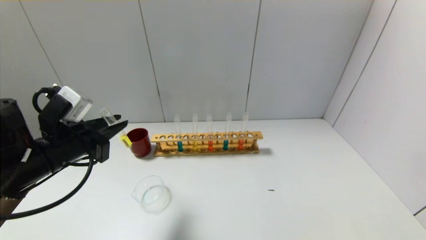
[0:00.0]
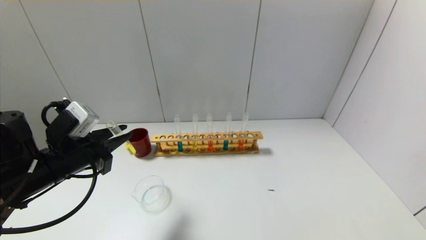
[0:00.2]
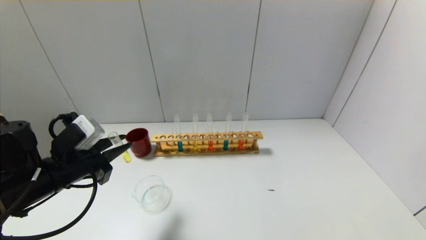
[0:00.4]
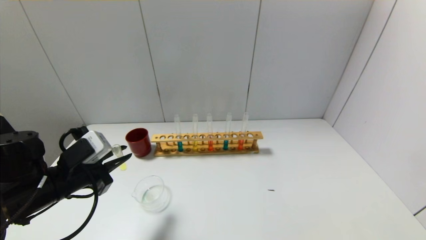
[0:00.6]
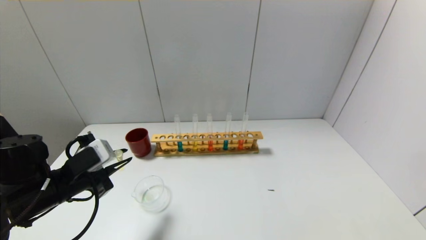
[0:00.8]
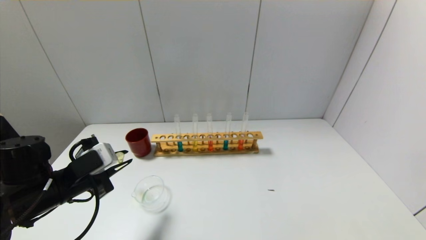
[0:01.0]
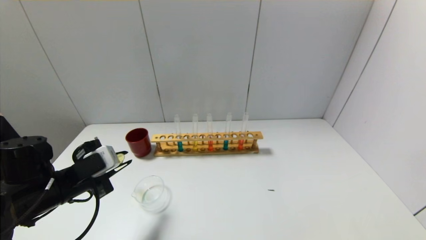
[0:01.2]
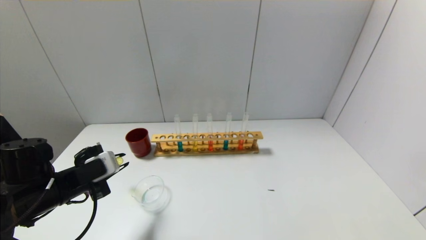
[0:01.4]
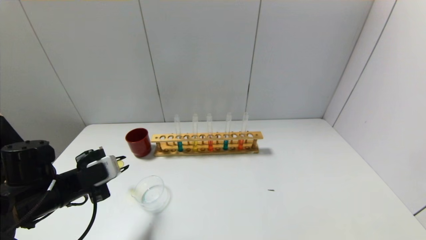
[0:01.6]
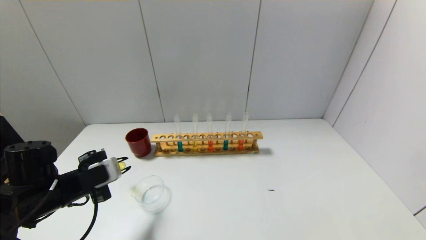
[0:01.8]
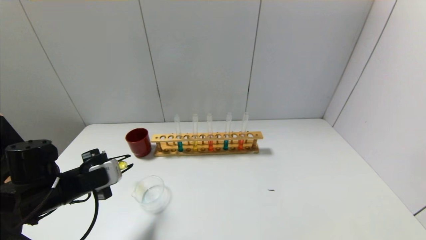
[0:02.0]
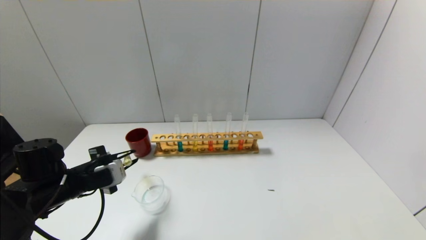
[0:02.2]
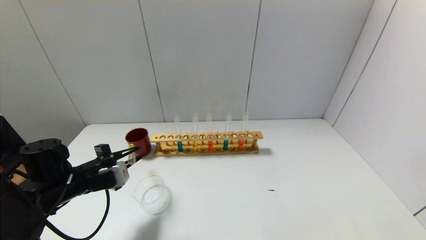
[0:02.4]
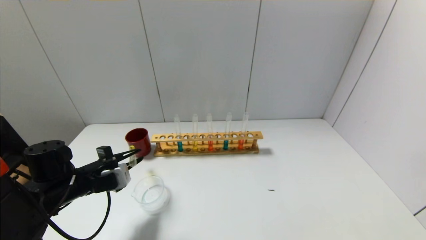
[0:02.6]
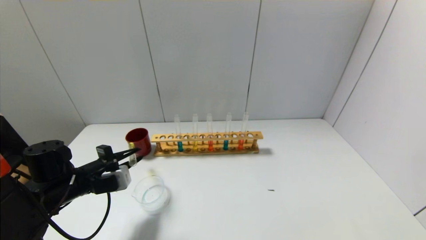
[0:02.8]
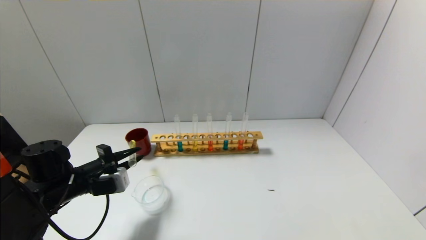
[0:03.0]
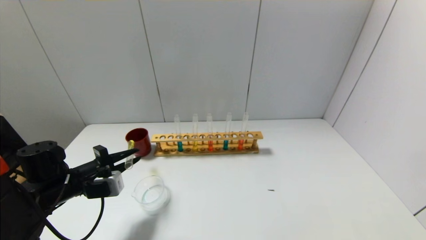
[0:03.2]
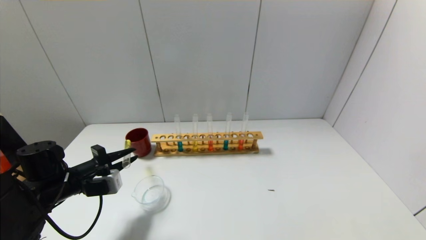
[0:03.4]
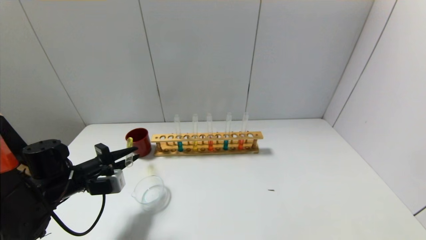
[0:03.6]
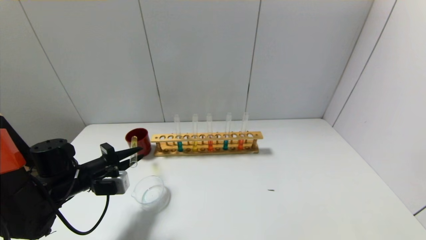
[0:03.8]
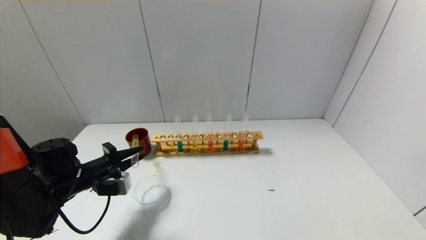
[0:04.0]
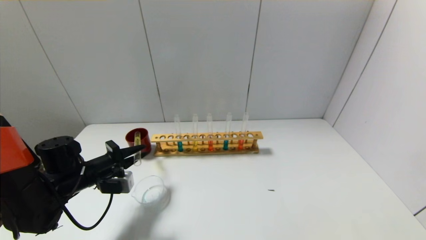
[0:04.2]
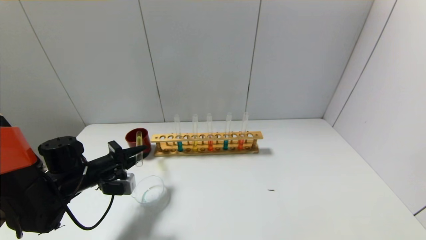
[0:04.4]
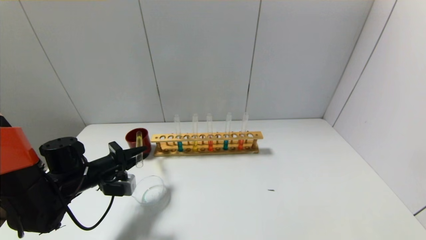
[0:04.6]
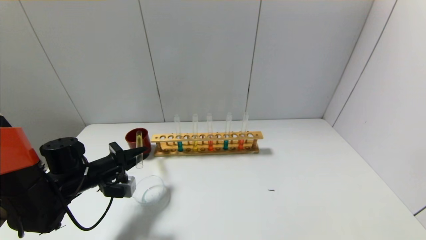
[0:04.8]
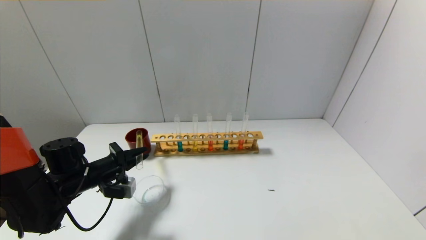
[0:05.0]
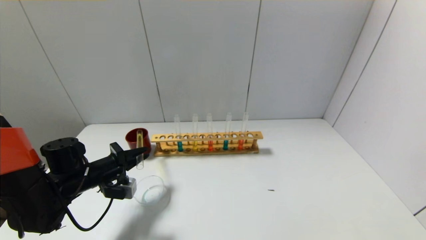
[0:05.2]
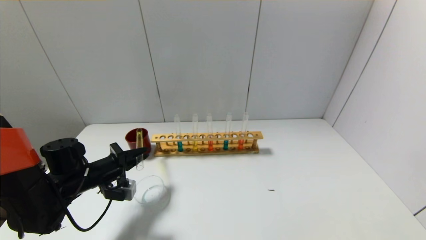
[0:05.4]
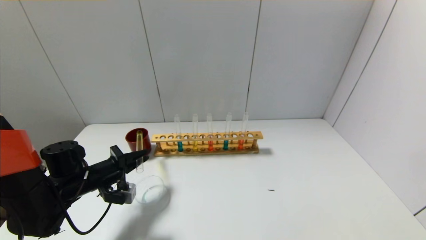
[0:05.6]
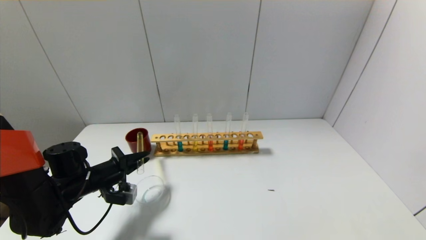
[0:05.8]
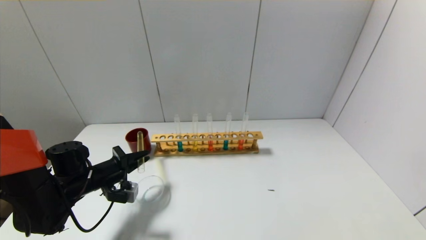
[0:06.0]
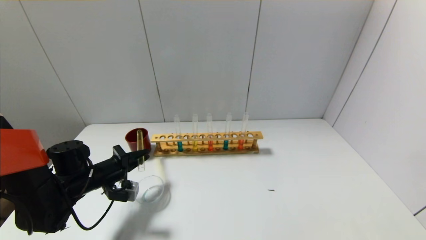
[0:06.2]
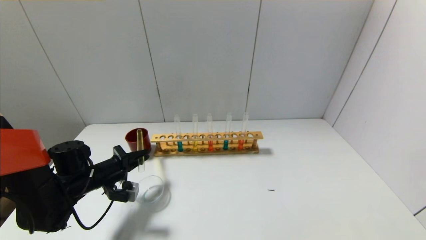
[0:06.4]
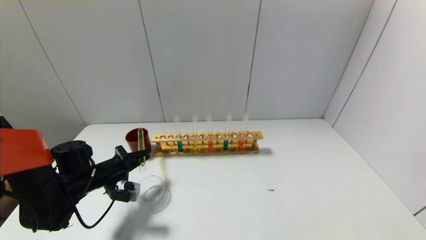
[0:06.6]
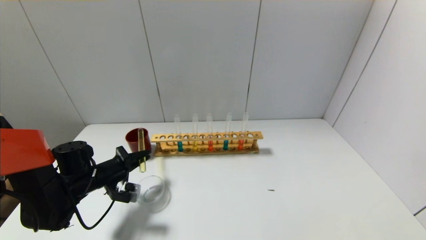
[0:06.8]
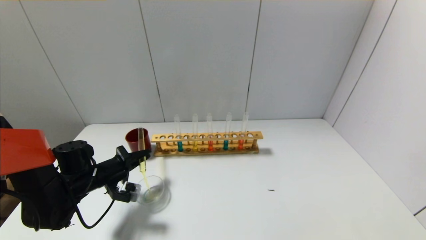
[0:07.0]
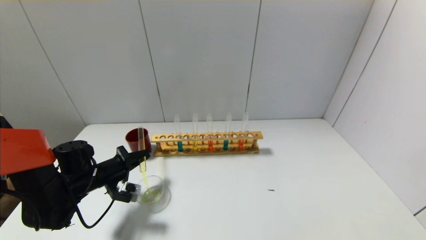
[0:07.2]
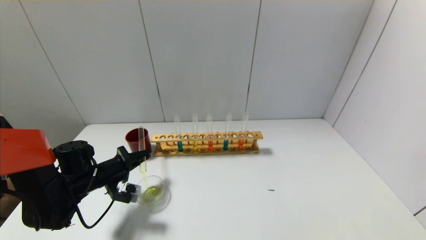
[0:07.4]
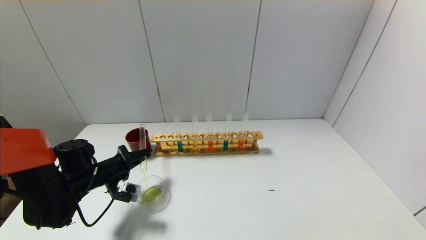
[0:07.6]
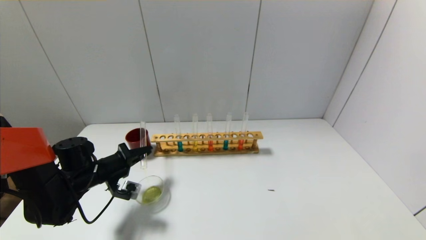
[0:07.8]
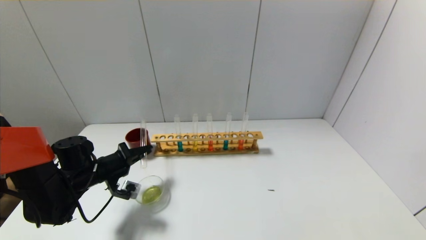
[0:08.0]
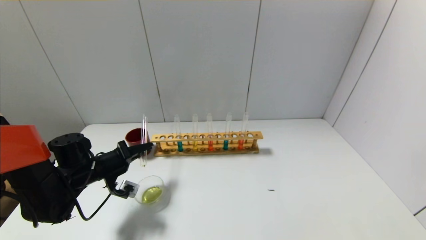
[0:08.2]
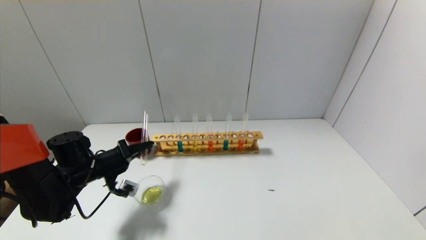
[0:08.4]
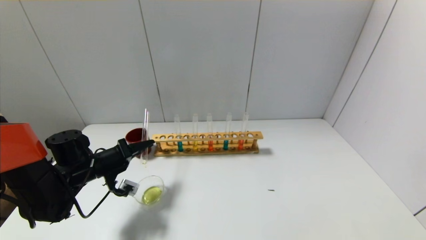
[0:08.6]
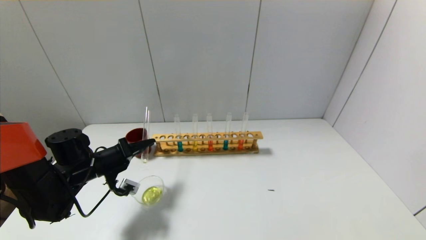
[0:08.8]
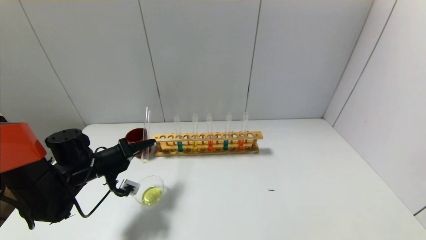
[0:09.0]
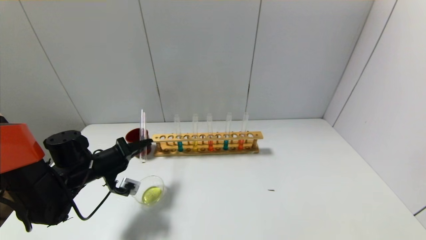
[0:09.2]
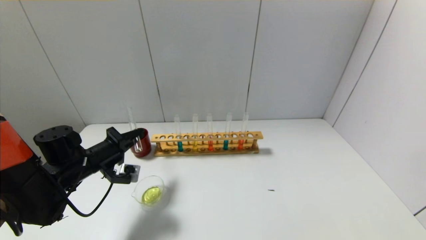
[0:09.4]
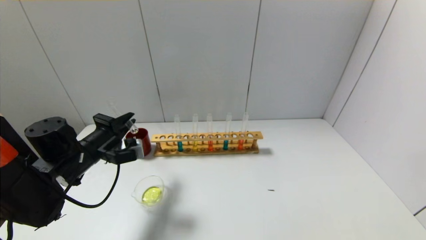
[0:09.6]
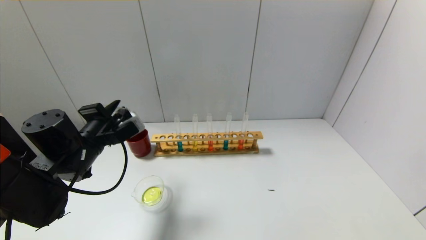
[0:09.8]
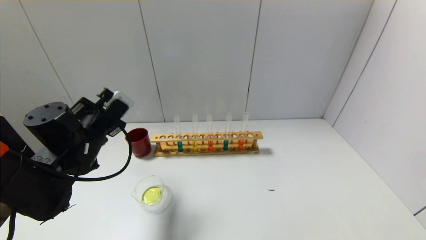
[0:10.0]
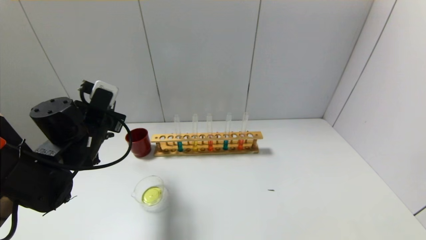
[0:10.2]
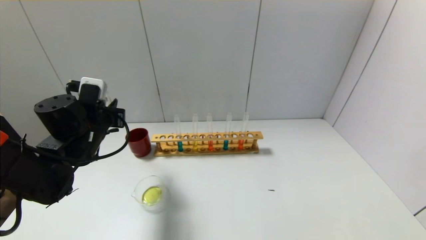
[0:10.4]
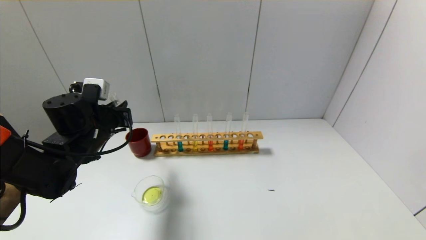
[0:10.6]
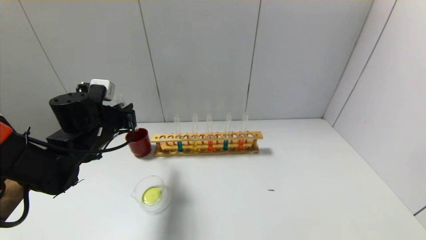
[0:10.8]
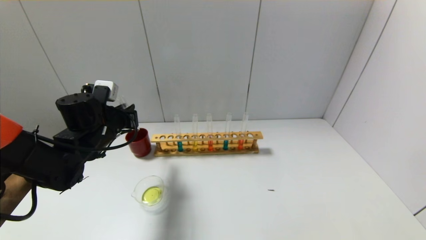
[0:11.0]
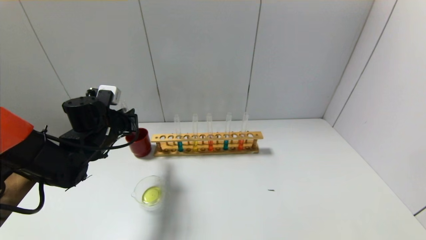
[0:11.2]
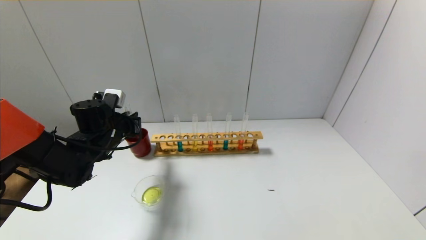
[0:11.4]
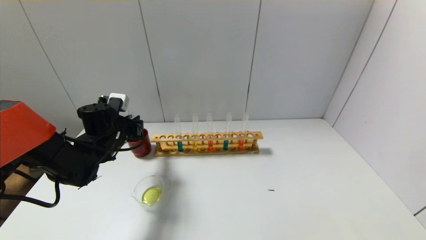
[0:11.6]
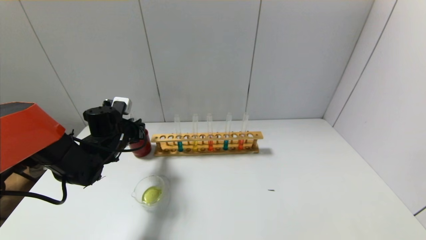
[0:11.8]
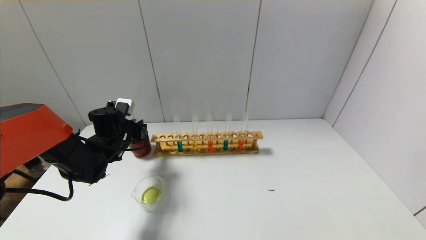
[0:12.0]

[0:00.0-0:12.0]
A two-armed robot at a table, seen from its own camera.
Step, 0:00.0 to 0:09.4: Pour the yellow reagent into the graduated cylinder with the left gripper.
0:00.0 to 0:01.6: The left gripper is displaced downward by approximately 10 cm.
0:03.0 to 0:04.4: The grippers stay close to where they were, moving slightly.
0:04.4 to 0:06.0: The grippers move only a little.
0:06.0 to 0:07.6: The grippers stay close to where they were, moving slightly.
0:07.6 to 0:09.0: There are only small adjustments of the grippers.
0:09.0 to 0:10.4: The left gripper heads upward, covering roughly 10 cm.
0:10.4 to 0:12.0: The left gripper heads forward and downward, covering approximately 10 cm.

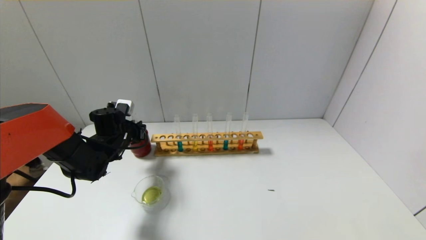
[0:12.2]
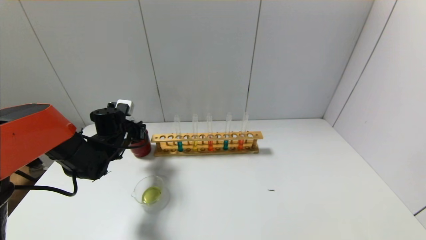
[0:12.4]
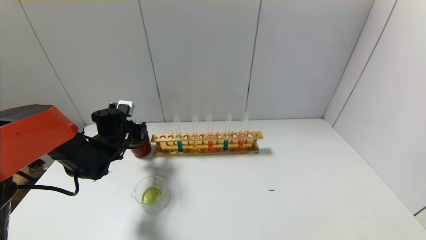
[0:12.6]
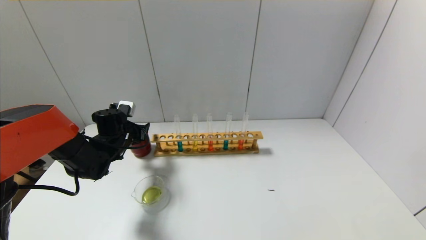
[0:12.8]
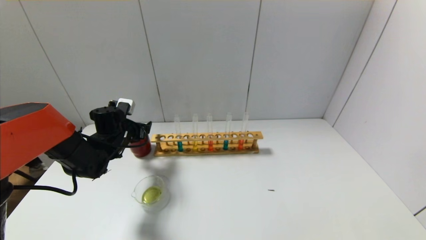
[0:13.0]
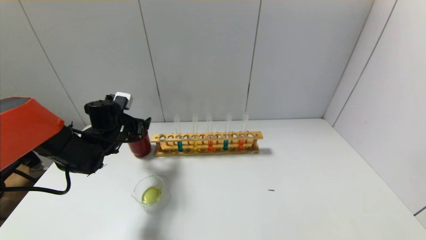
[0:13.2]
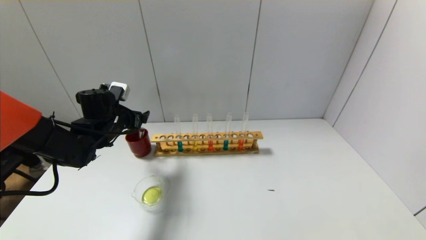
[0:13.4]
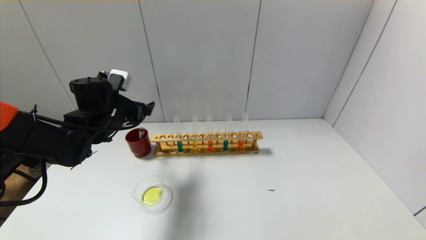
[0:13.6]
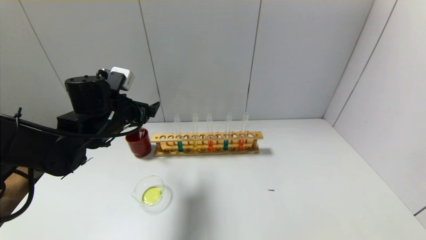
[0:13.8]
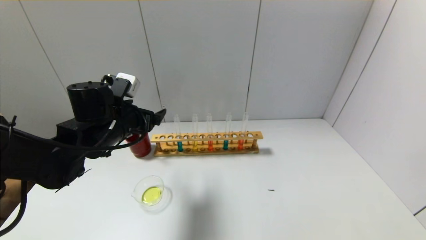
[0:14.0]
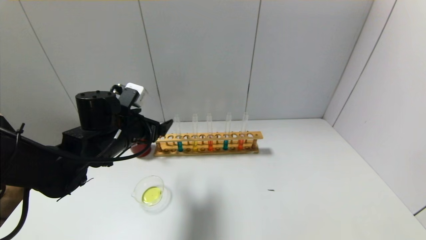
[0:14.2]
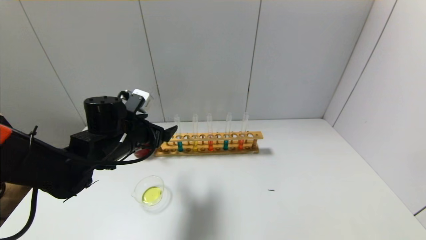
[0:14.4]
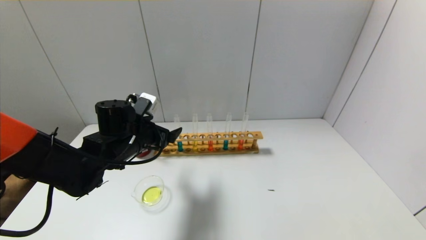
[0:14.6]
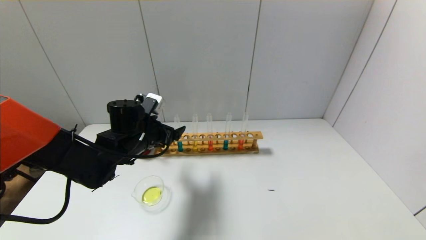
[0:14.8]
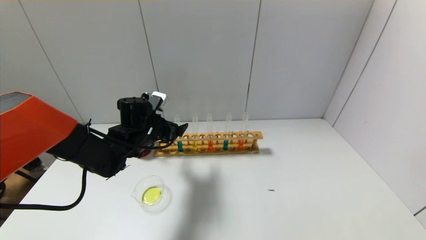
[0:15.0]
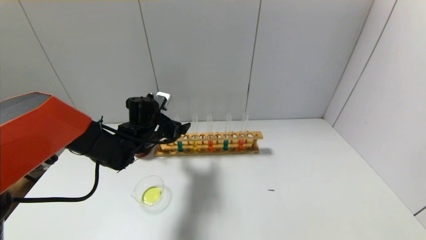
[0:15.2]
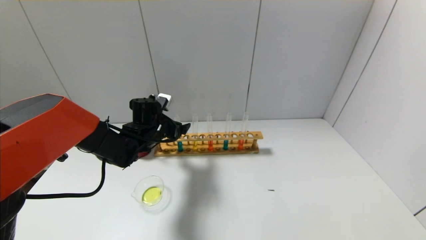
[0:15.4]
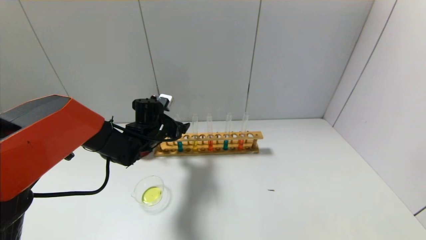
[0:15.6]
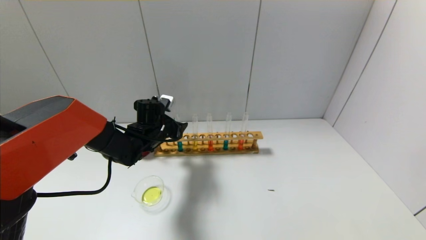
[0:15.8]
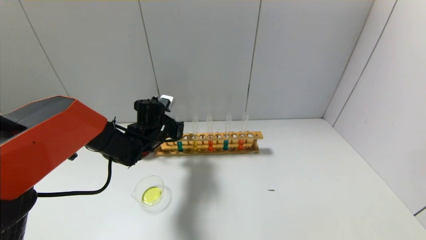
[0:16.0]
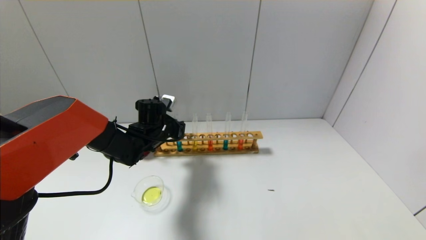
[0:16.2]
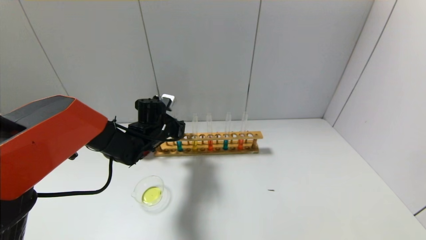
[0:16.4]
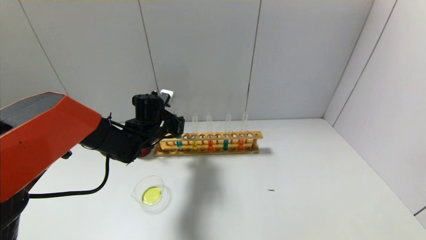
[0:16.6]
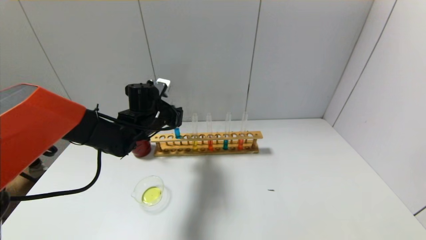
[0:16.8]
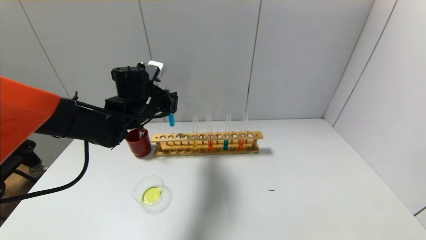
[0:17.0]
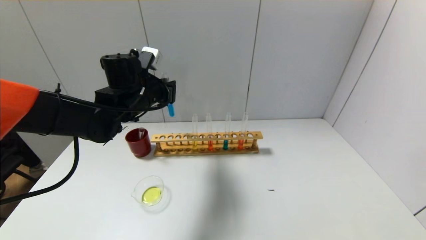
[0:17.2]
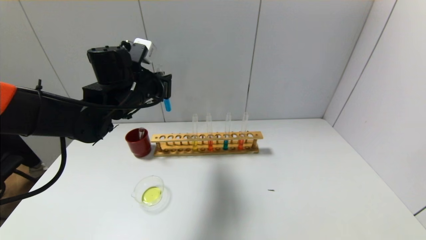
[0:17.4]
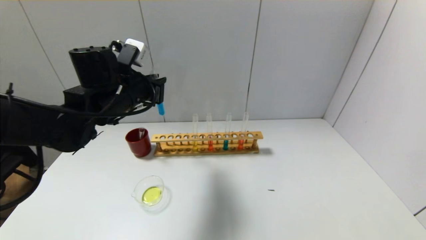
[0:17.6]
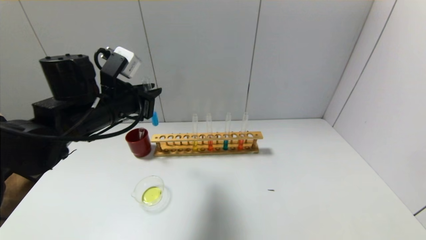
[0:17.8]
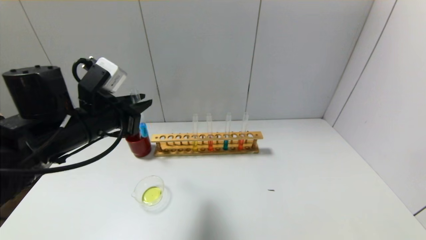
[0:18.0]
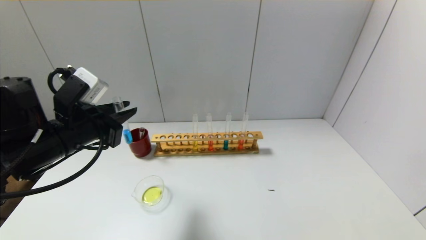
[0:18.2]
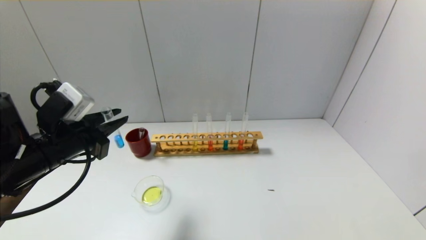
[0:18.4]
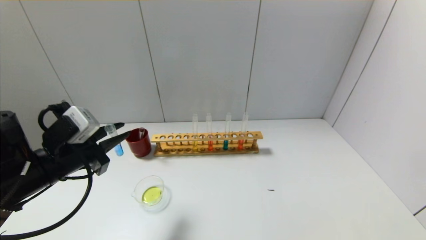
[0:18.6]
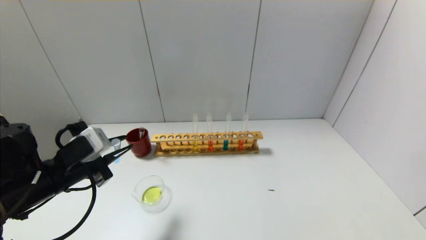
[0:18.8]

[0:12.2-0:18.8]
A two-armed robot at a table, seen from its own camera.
Step, 0:12.8 to 0:16.2: Grasp the blue reagent with the left gripper.
0:12.2 to 0:13.8: The left gripper moves upward and backward, about 10 cm, and opens its fingers.
0:13.8 to 0:15.4: The left gripper heads downward, forward and to the right, covering about 10 cm.
0:15.4 to 0:17.2: The left gripper goes roughly 10 cm upward, and closes.
0:17.2 to 0:18.8: The left gripper moves backward, to the left and downward, some 20 cm.
